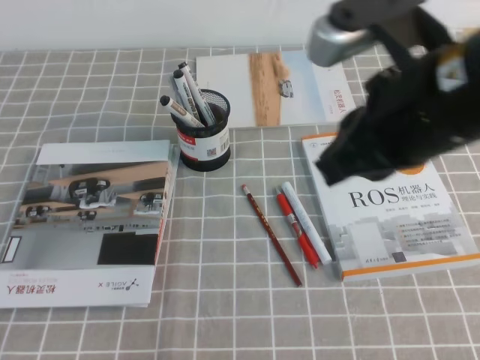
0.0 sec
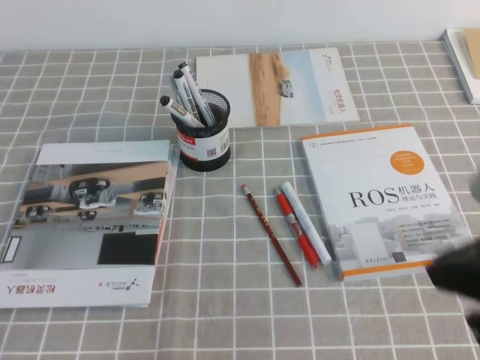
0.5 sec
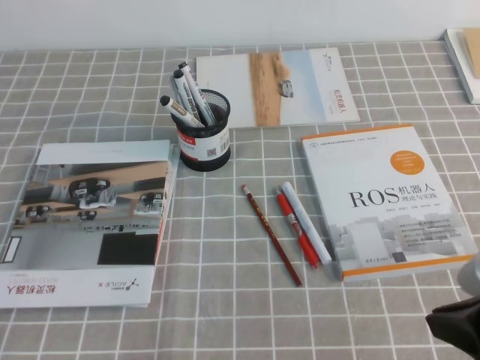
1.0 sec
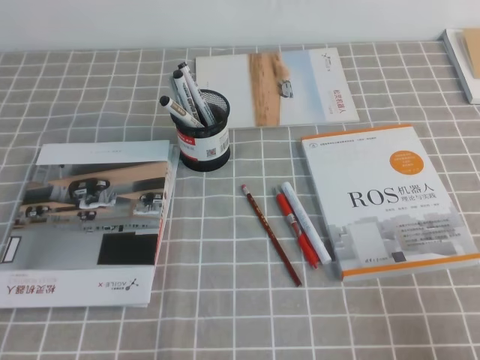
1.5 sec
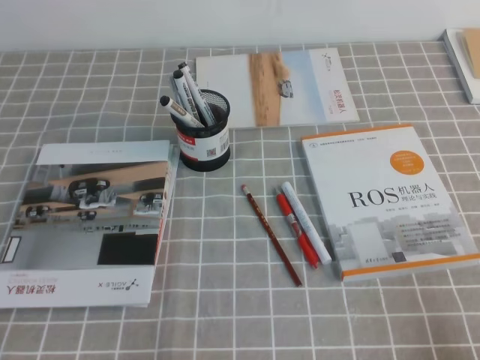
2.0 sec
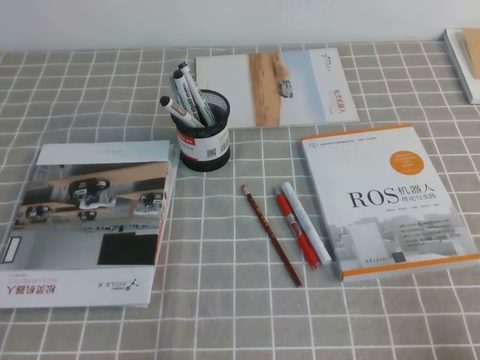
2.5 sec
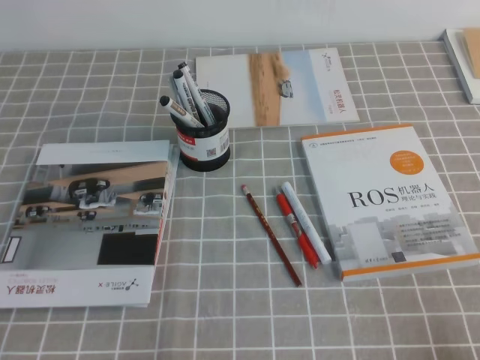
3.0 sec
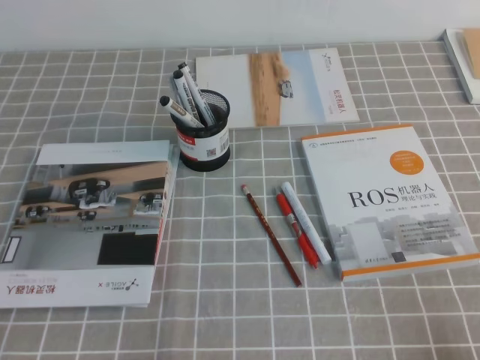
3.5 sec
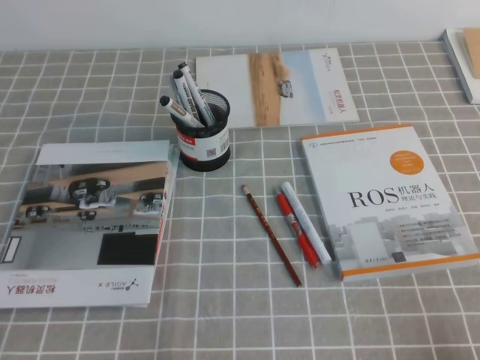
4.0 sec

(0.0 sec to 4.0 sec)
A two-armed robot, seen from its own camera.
Step, 0.0 sec - 4.0 sec: Pick up the pen from the pen holder.
0.0 sec - 2.0 sec: The right gripper travels downward, to the right and backward by some 30 cm.
